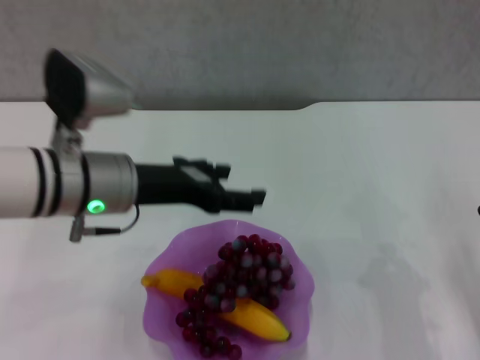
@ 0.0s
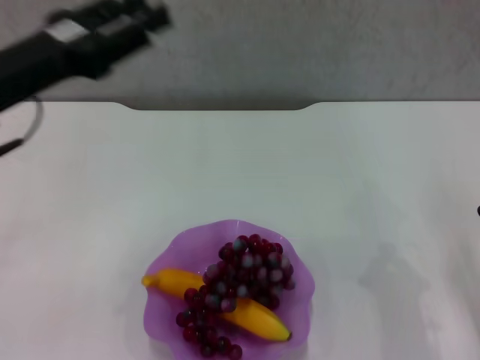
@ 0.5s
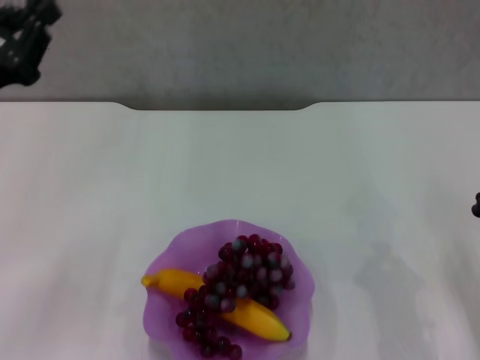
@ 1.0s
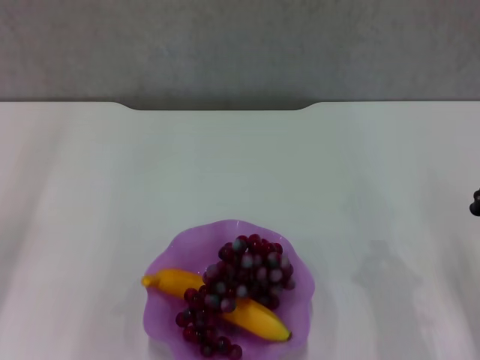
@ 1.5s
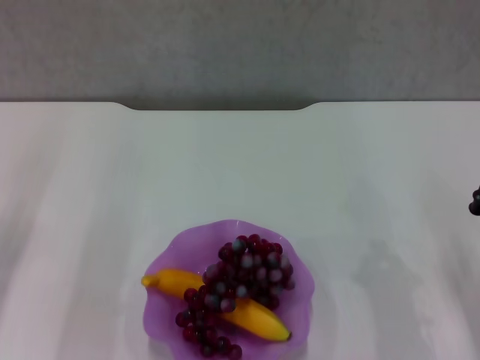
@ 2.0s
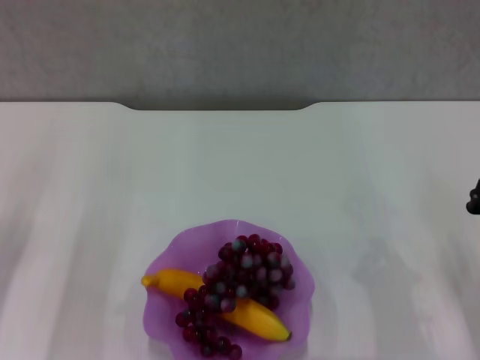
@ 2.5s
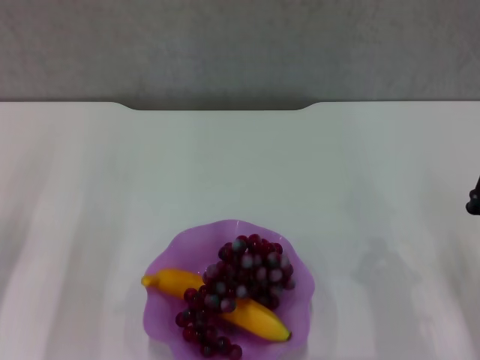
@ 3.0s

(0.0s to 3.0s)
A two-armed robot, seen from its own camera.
0.0s - 1.5s: The left gripper is displaced to the left by about 15 cm, and closes up.
